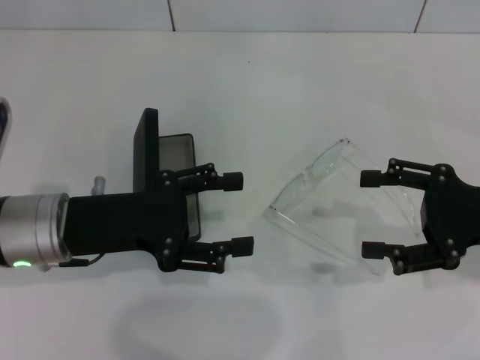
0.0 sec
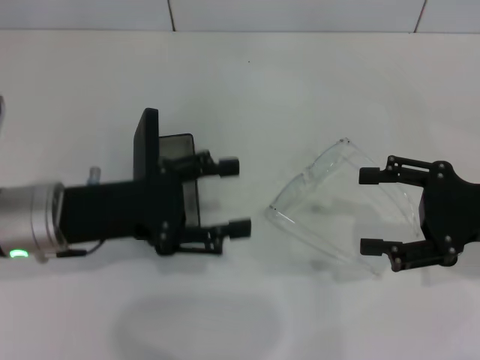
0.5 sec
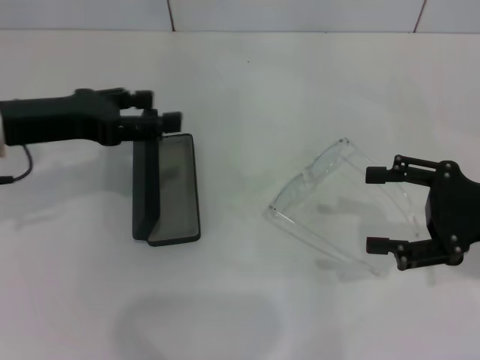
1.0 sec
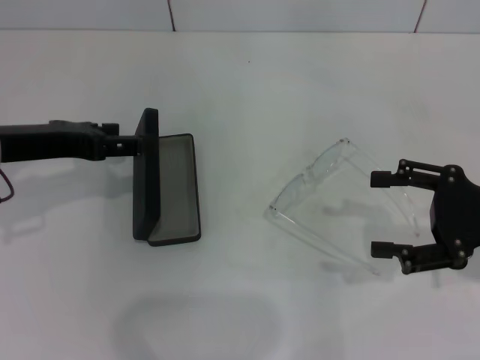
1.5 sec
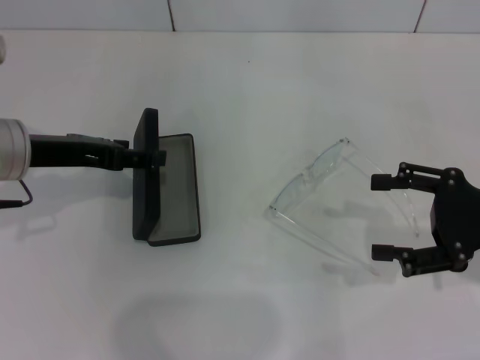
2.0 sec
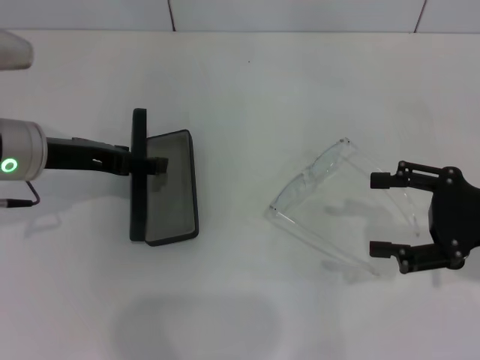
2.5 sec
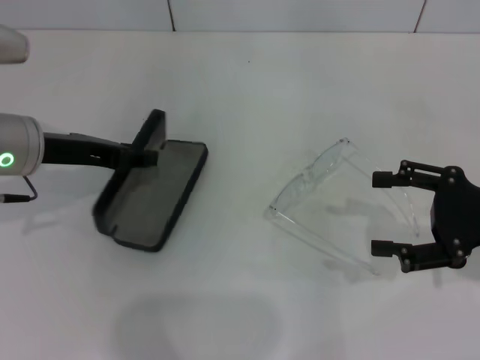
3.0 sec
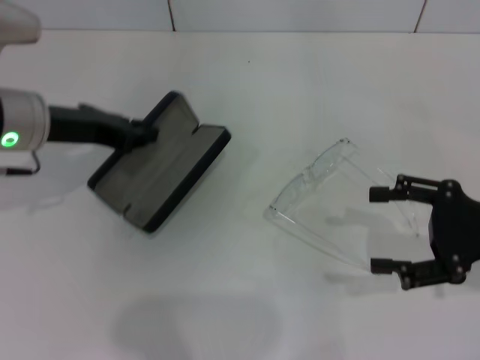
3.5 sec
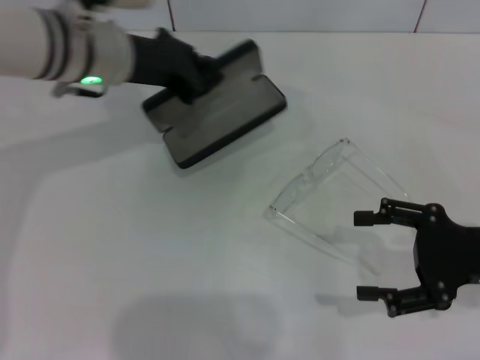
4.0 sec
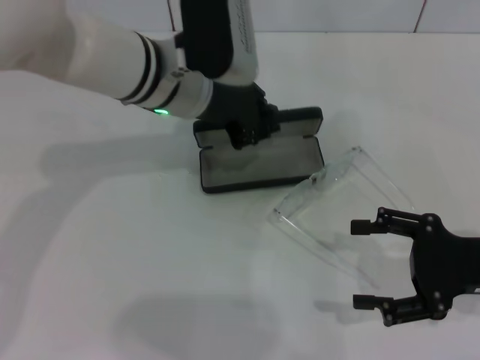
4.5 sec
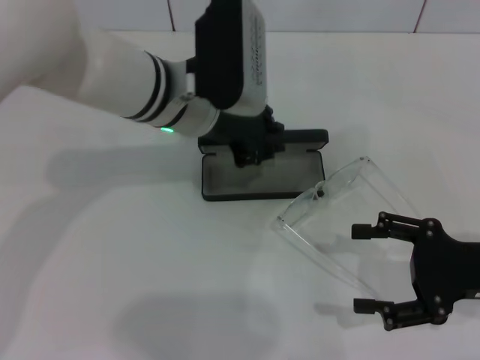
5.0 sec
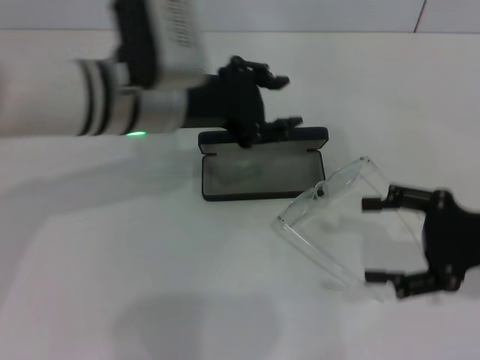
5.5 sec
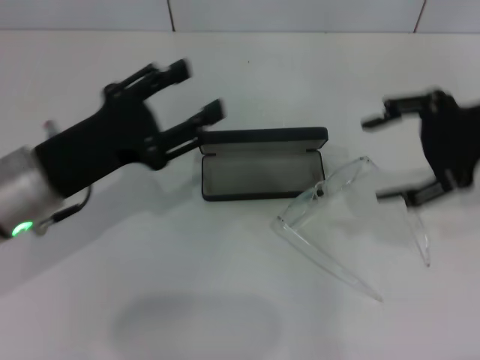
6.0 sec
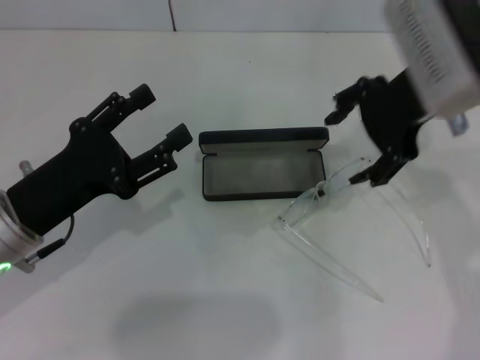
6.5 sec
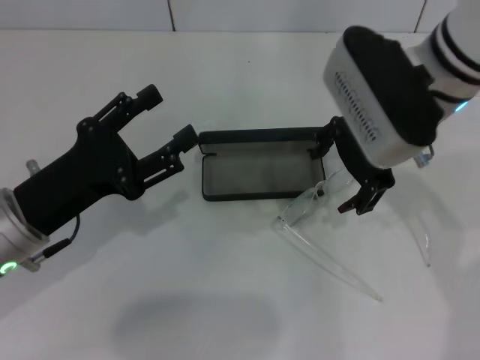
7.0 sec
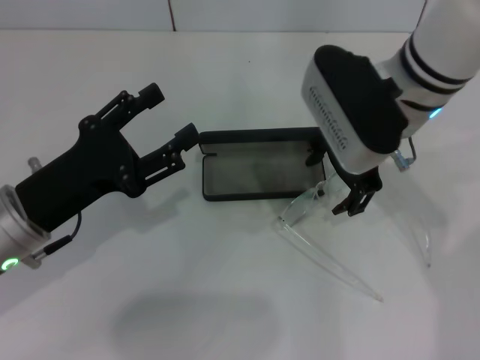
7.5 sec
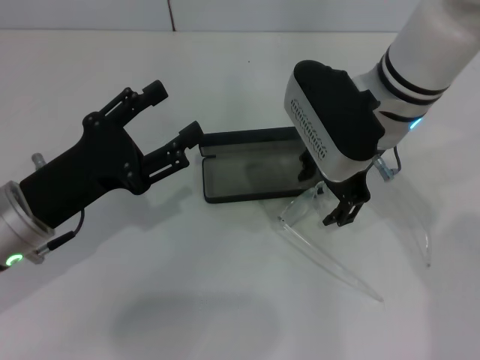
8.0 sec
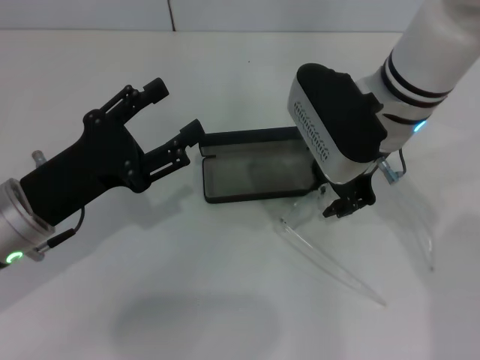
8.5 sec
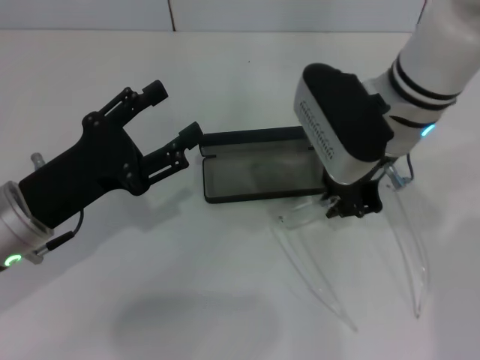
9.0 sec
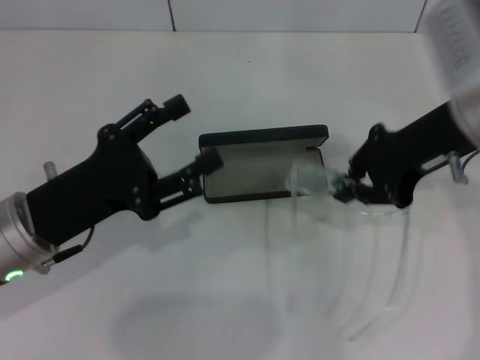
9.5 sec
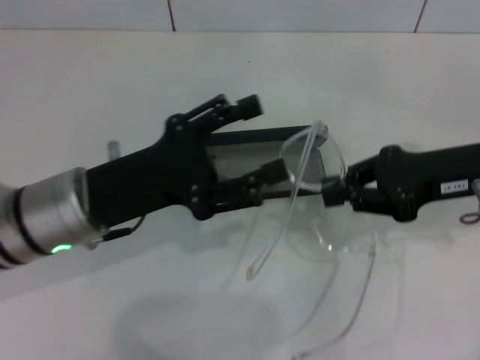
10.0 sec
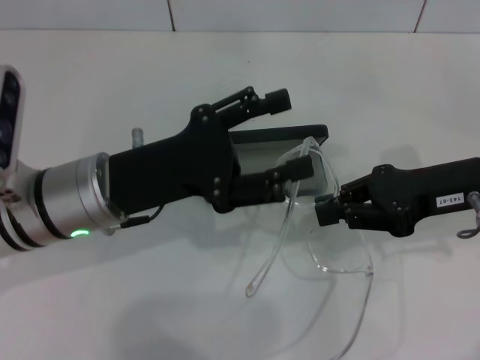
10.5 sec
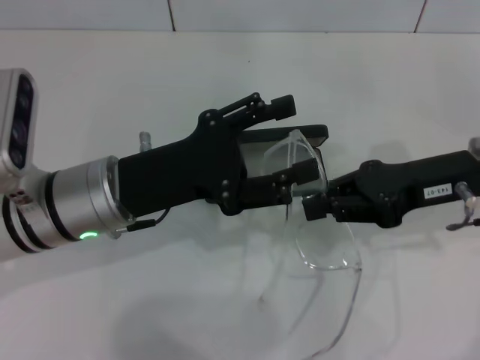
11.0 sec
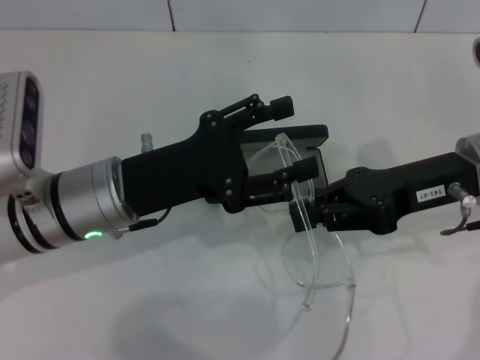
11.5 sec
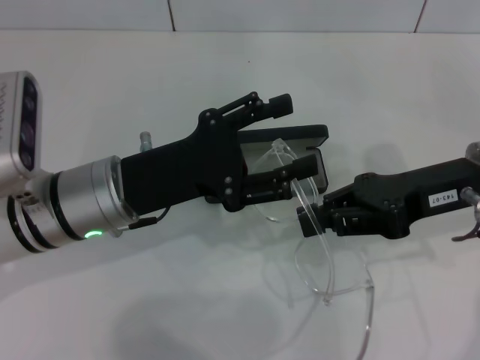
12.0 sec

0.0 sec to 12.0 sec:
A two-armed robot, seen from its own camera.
Step, 0.0 sec to 3.0 sec: Grab the glasses case with your left hand.
Step, 3.5 sec to 5.0 sec: Place the glasses case in the center of the table with your left hand.
Step, 5.5 sec to 8.5 sec: Grab the eyeglass frame with your right hand.
0.0 sec to 2.0 sec: The left gripper moves forward, some 5 cm.
2.0 sec to 4.0 sec: The left gripper shifts approximately 10 cm to the right and forward, and closes.
4.0 sec to 6.0 sec: The left gripper travels backward by some 15 cm, and opens up, while the right gripper goes approximately 15 cm upward and forward.
6.0 sec to 8.0 sec: The left gripper shifts by about 5 cm. The right gripper moves to the left, forward and downward, about 15 cm.
8.0 sec to 10.0 sec: The right gripper moves to the right, approximately 15 cm, and closes, while the left gripper changes place by approximately 5 cm.
10.0 sec to 12.0 sec: The grippers make only small movements.

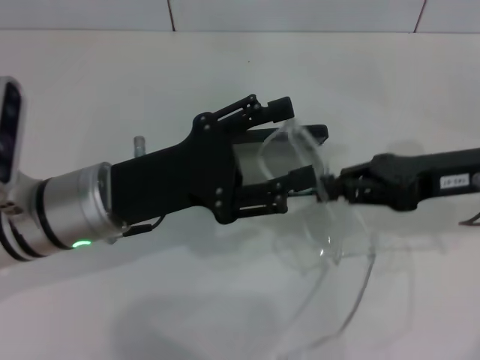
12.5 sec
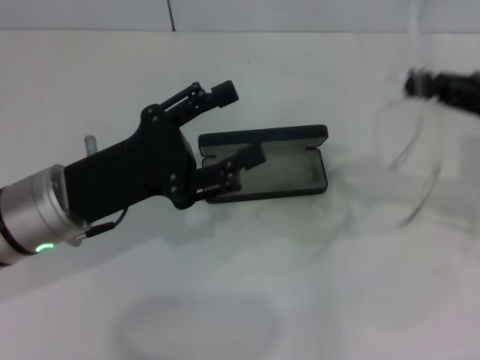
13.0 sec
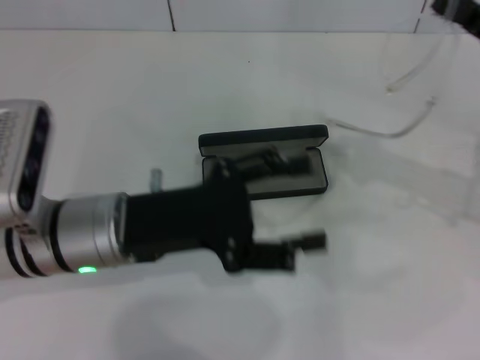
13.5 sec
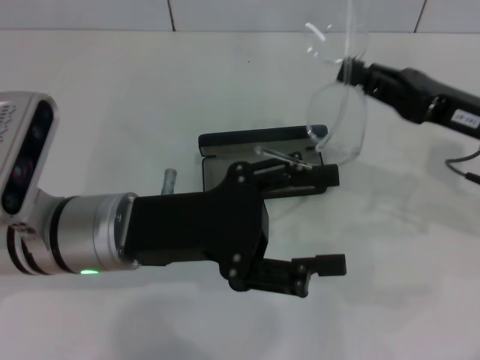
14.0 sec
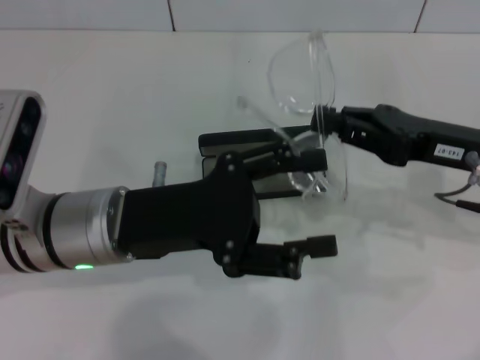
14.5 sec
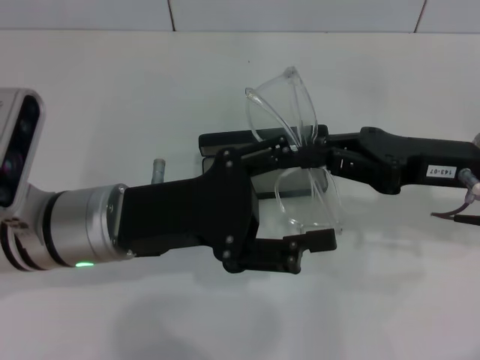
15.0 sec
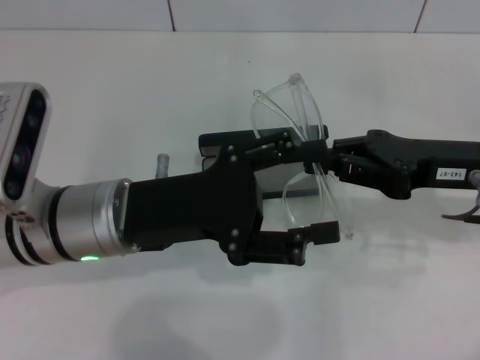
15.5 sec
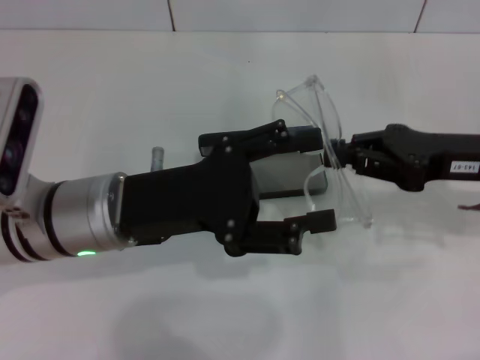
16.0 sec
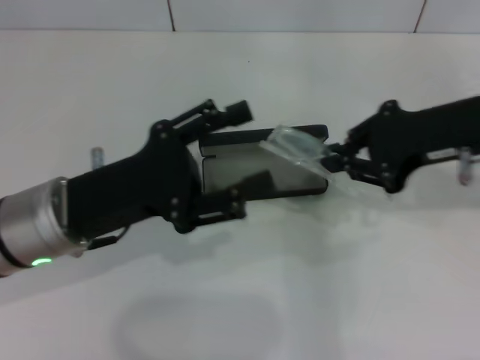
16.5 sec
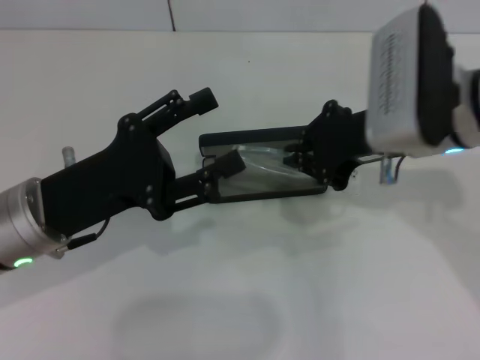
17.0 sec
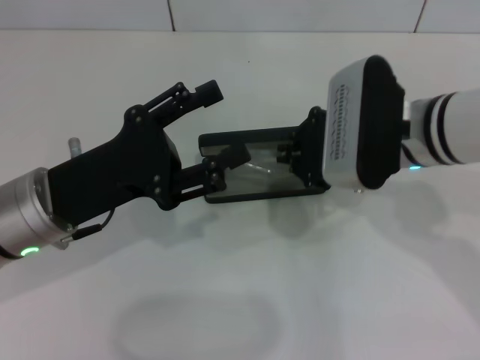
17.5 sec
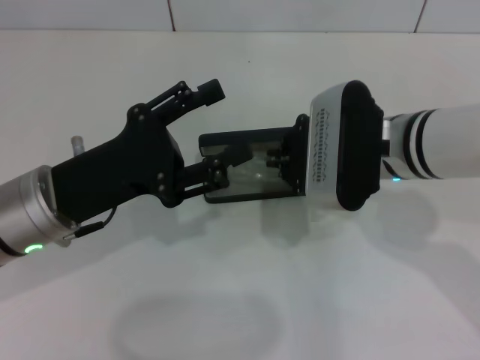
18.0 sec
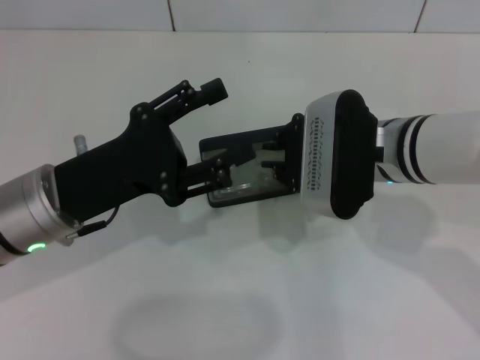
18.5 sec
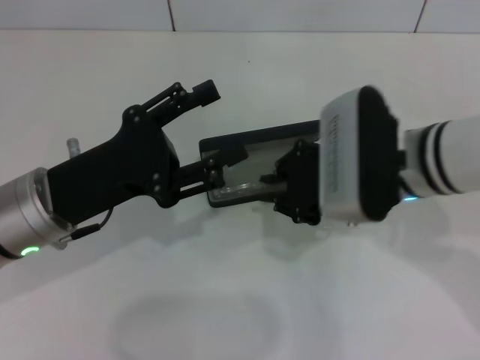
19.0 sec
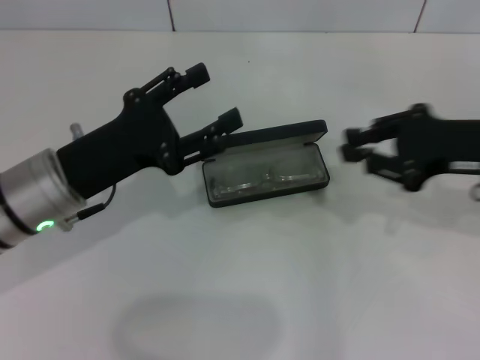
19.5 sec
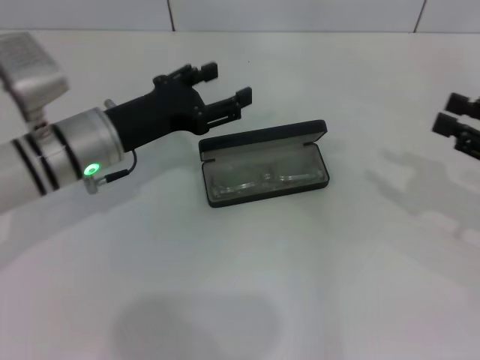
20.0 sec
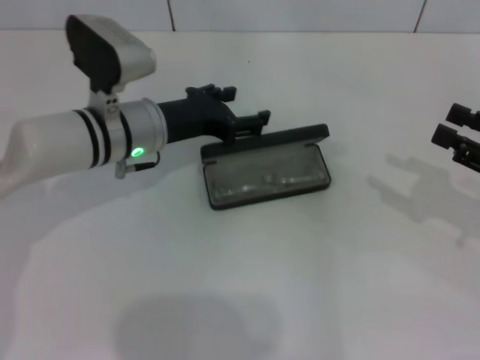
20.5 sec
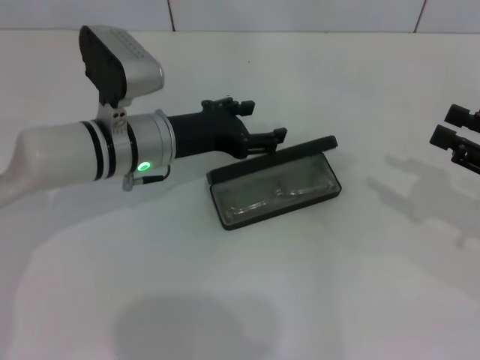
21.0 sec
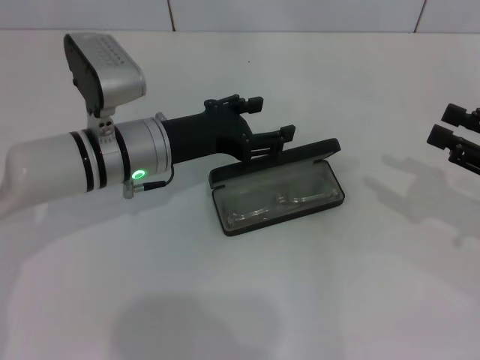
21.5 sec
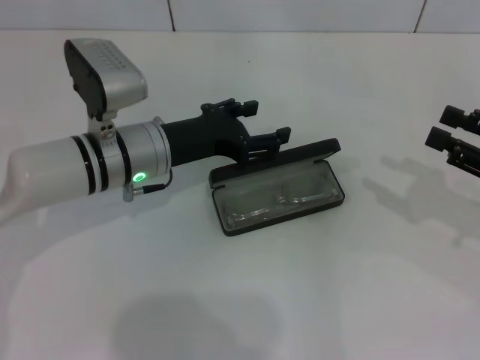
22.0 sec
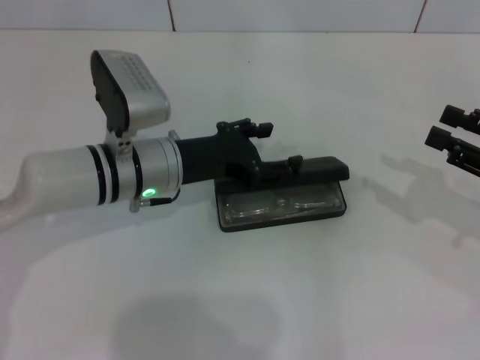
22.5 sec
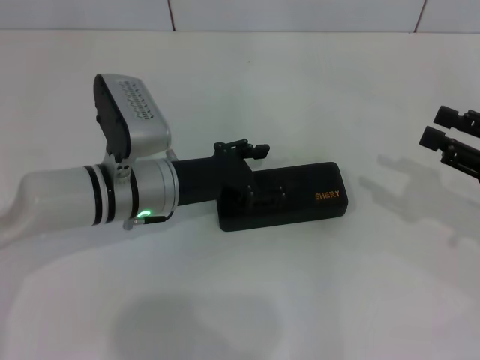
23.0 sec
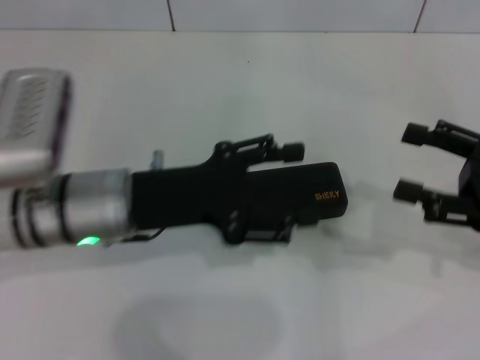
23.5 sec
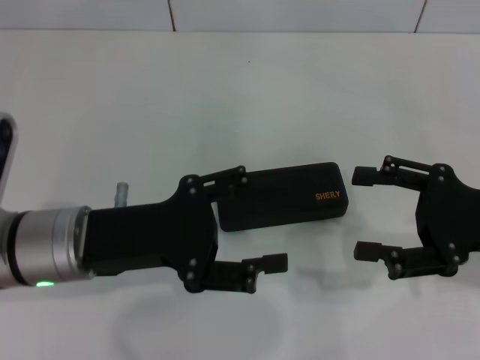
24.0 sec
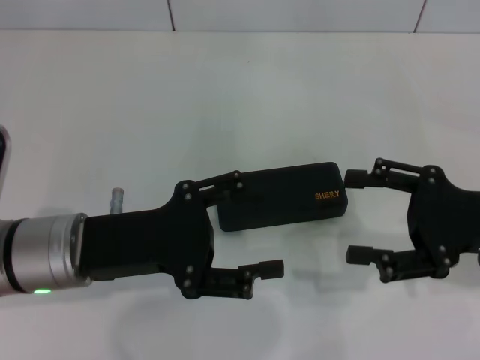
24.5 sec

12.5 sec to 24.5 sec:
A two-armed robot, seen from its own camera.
Step, 12.5 sec to 15.5 sec: Fold the frame with your left hand.
Step, 16.5 sec to 18.0 sec: Put the glasses into the case with your right hand.
Step, 18.5 sec to 23.0 sec: Close the glasses case with your left hand.
14.5 sec to 16.5 sec: The right gripper travels upward by about 5 cm.
16.5 sec to 18.5 sec: The right gripper shifts about 10 cm to the left and downward.
18.5 sec to 20.5 sec: The right gripper is displaced to the right by roughly 25 cm, and opens its fingers; the left gripper moves forward and to the right, roughly 15 cm.
20.5 sec to 22.5 sec: The grippers move only a little.
22.5 sec to 24.5 sec: The left gripper moves backward and to the left, roughly 10 cm, while the right gripper shifts some 5 cm to the left.

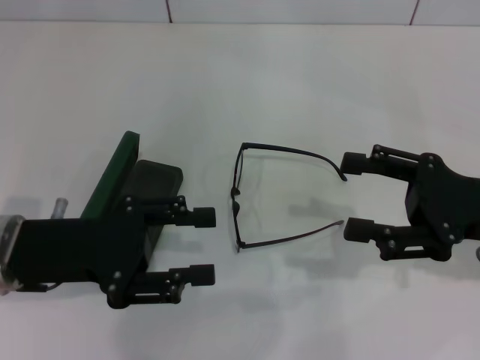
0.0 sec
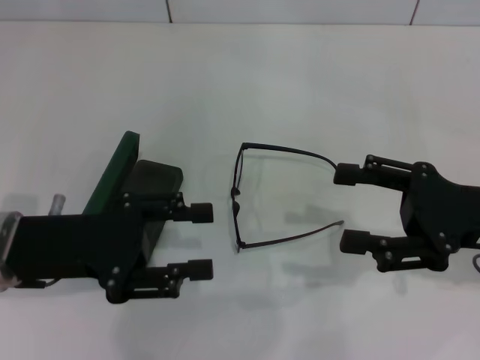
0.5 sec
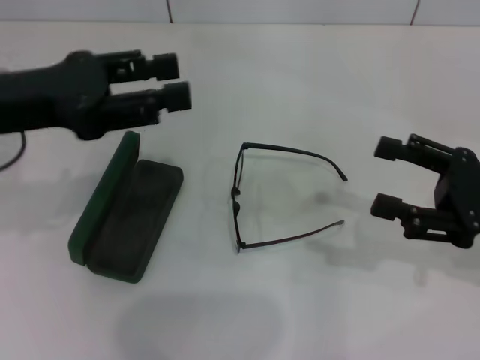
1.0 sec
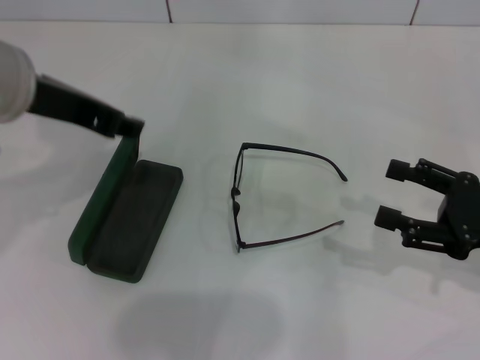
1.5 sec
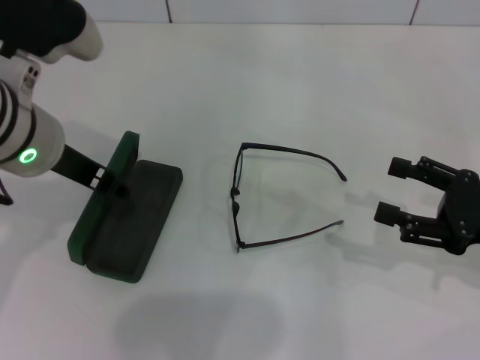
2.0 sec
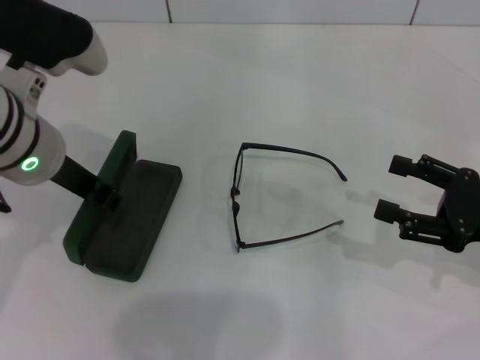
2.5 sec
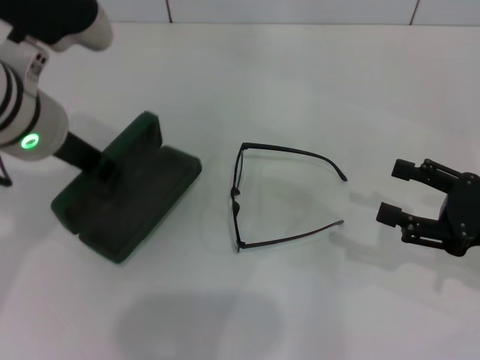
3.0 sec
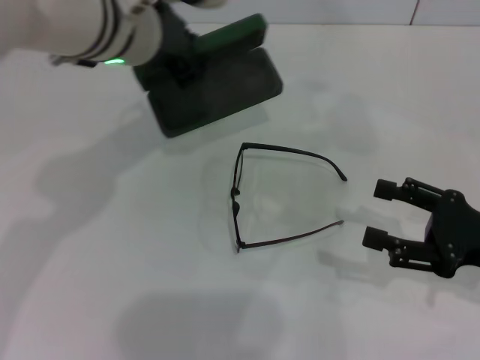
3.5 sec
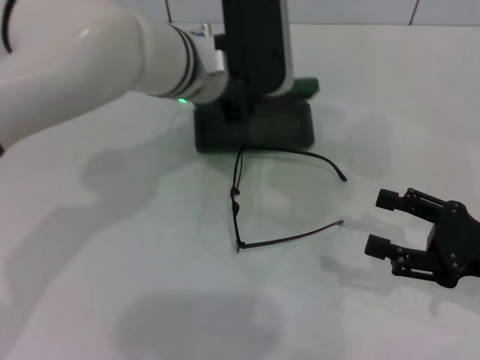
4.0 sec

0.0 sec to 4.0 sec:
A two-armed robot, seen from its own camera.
Step, 0.0 sec to 2.5 sec: Grab the glasses case with your left hand.
0.0 sec to 2.0 sec: The left gripper travels upward, forward and to the right by approximately 15 cm, while the right gripper changes place by approximately 5 cm.
2.0 sec to 4.0 sec: The left gripper travels to the right and forward by roughly 15 cm, and closes up.
